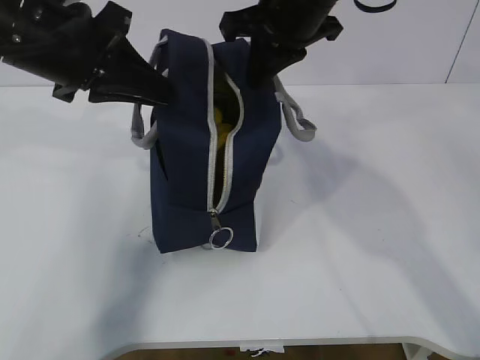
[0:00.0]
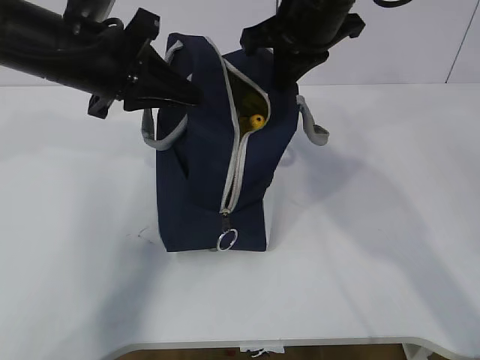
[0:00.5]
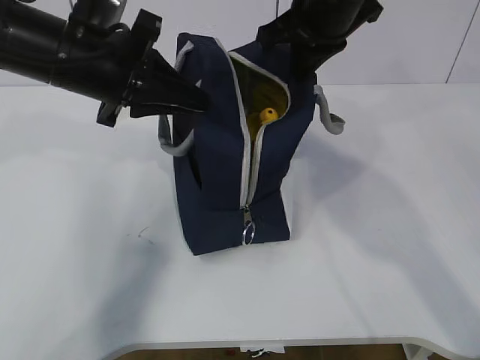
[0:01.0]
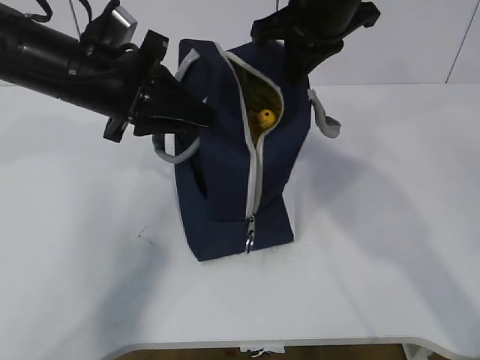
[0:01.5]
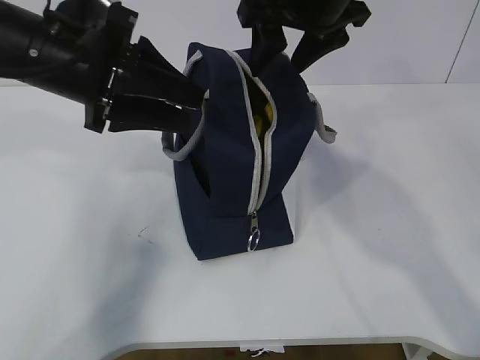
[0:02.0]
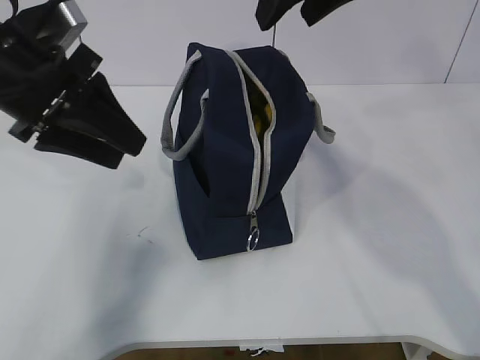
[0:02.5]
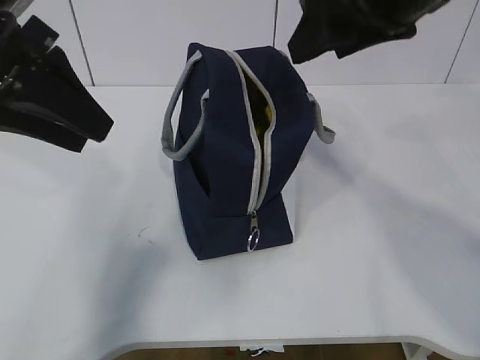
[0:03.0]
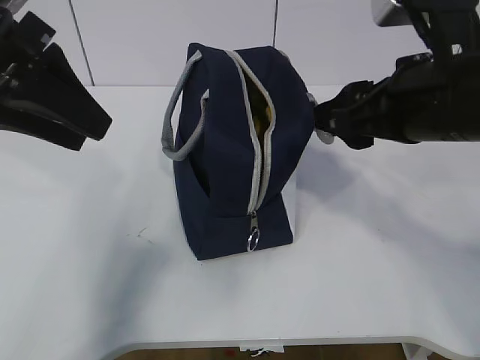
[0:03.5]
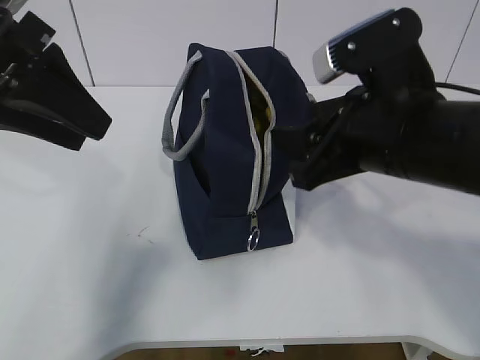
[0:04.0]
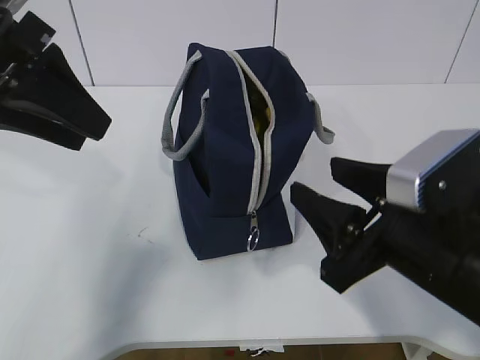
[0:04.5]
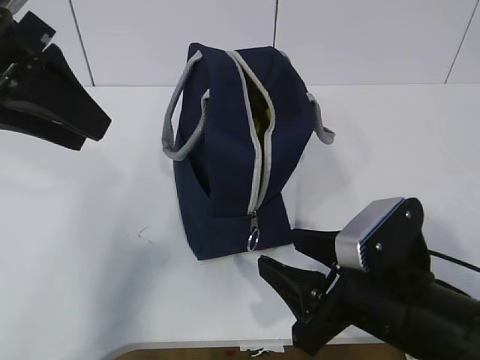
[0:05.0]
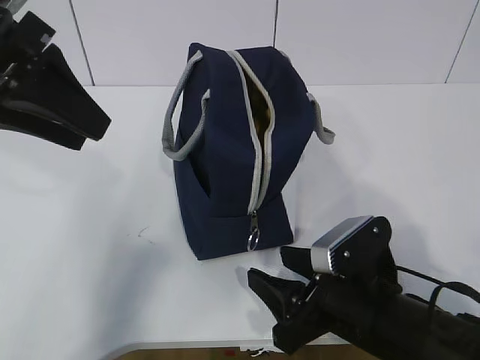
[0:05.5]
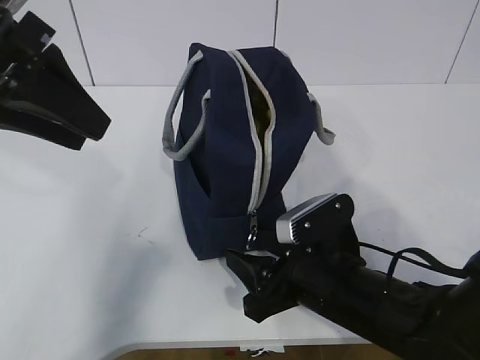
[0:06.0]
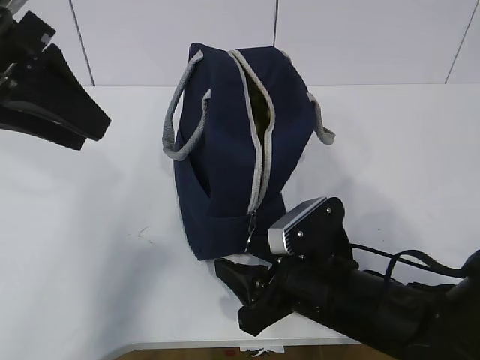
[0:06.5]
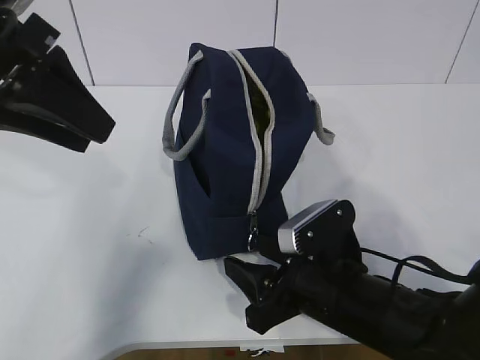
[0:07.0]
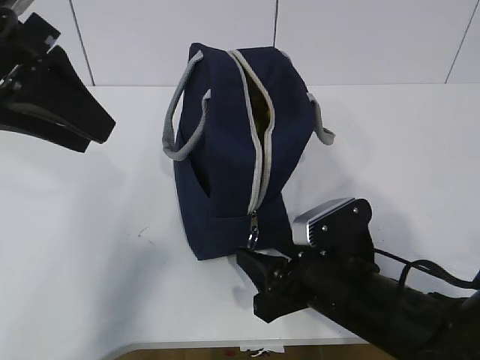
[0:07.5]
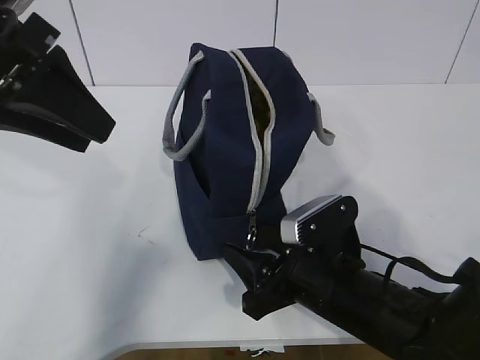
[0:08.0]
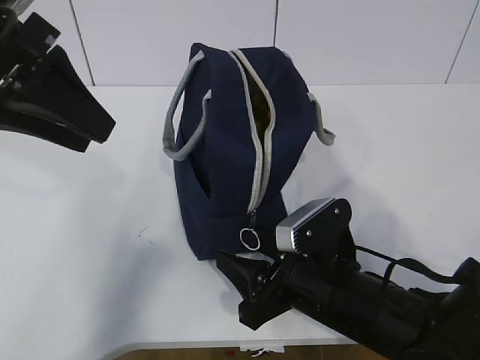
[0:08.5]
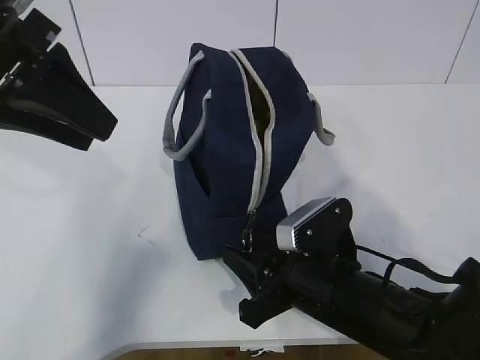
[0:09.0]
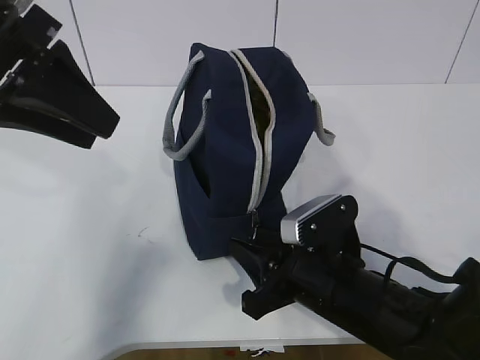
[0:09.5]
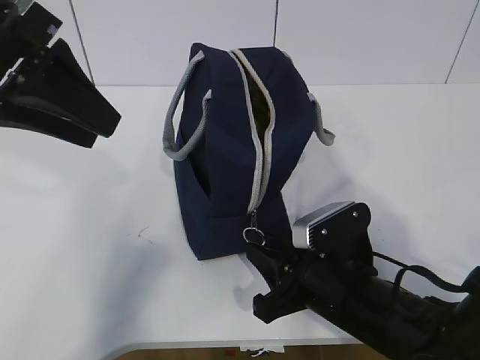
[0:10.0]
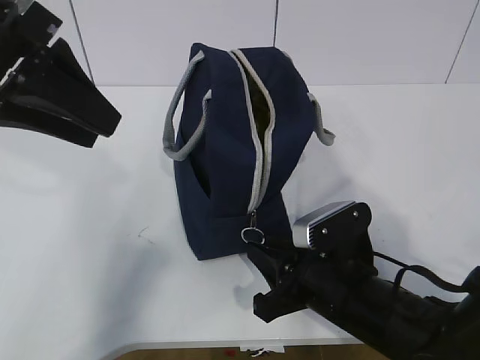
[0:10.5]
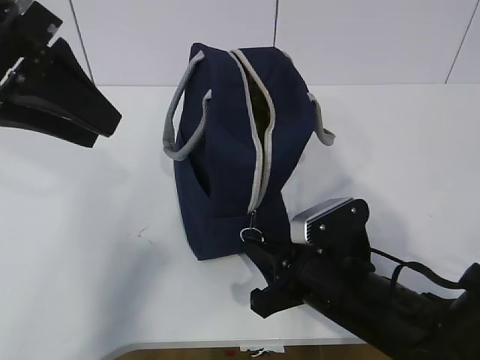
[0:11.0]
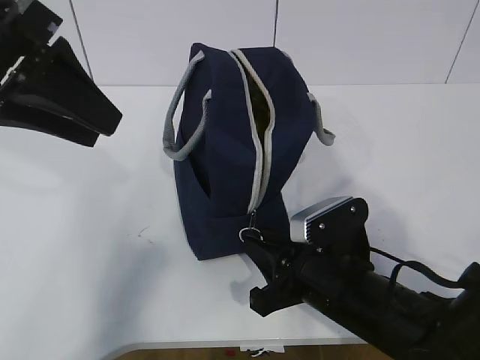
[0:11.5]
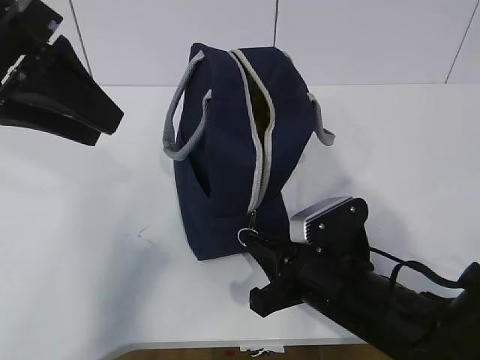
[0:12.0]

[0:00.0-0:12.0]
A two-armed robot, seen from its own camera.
0:00.0 to 0:02.0: The left gripper opens its fingers. The right gripper opens up.
0:02.0 to 0:04.0: The left gripper is displaced backward by about 5 cm. Meanwhile the right gripper travels backward and downward by about 15 cm.
0:04.0 to 0:06.0: The right gripper is displaced downward by approximately 15 cm.
0:06.0 to 0:08.0: The grippers move only a little.
0:08.0 to 0:10.0: The right gripper closes its fingers.
0:10.0 to 0:12.0: Both grippers stay about where they are.

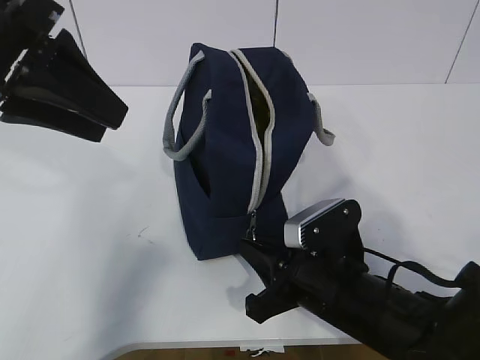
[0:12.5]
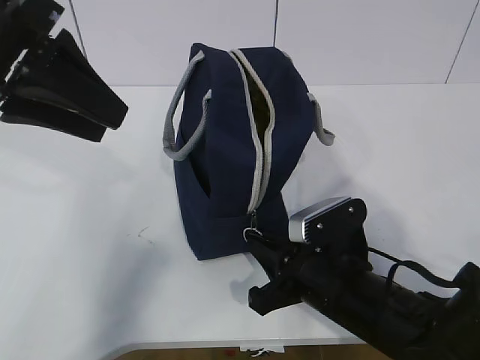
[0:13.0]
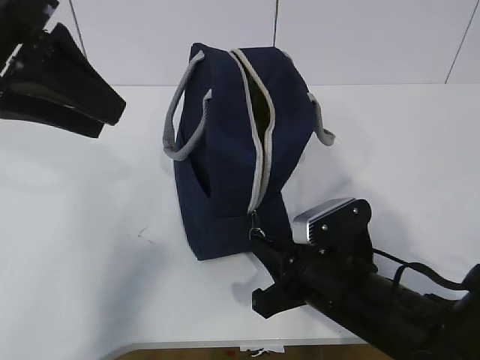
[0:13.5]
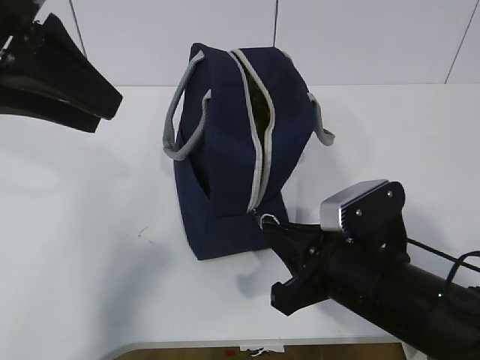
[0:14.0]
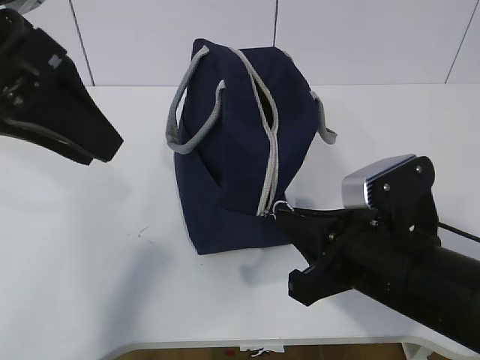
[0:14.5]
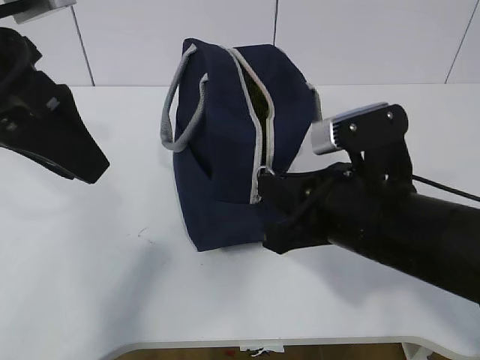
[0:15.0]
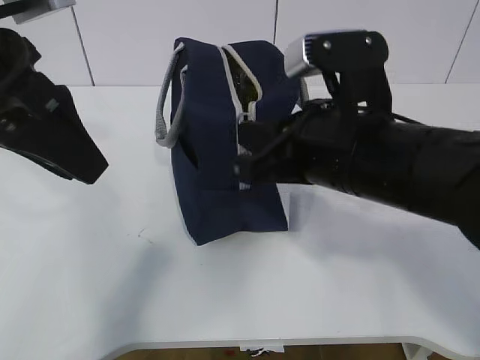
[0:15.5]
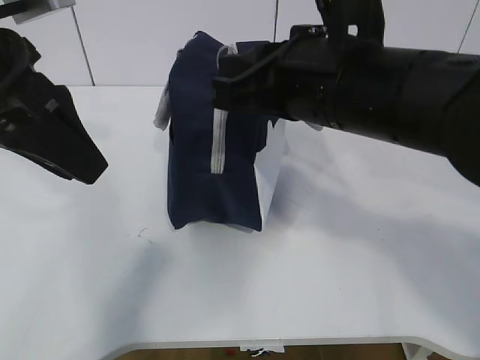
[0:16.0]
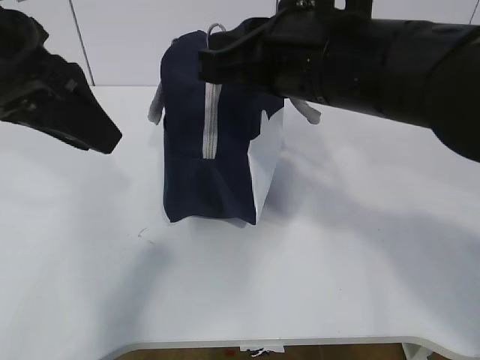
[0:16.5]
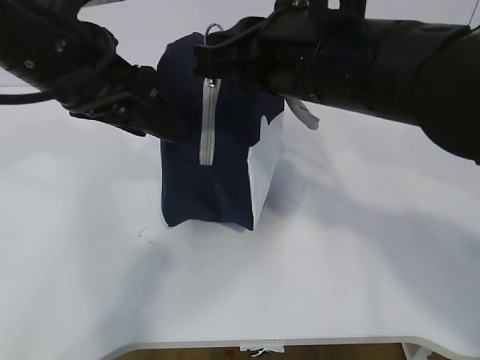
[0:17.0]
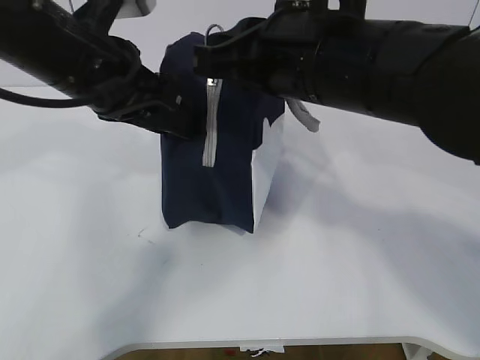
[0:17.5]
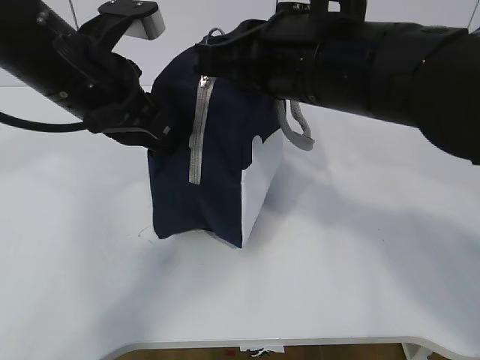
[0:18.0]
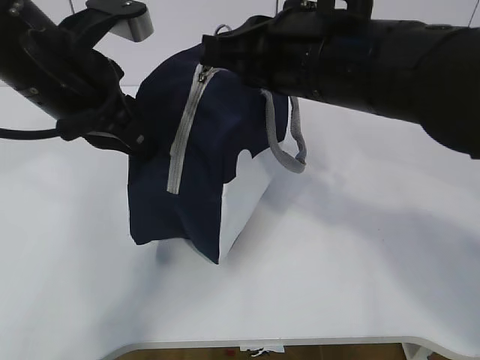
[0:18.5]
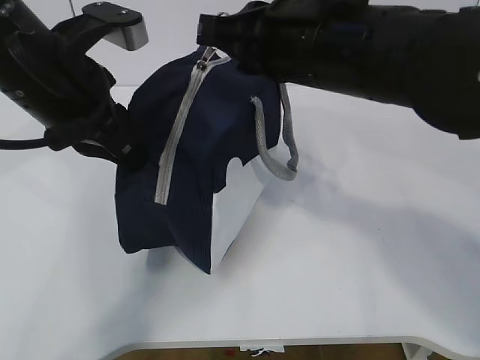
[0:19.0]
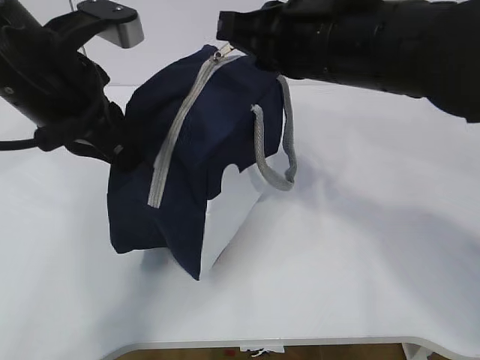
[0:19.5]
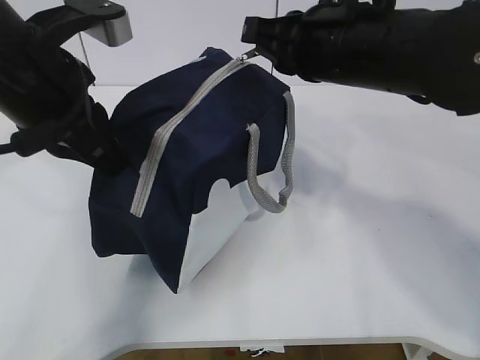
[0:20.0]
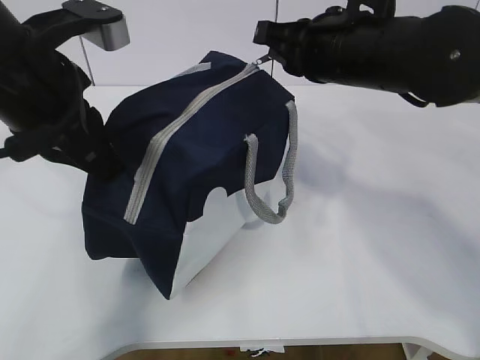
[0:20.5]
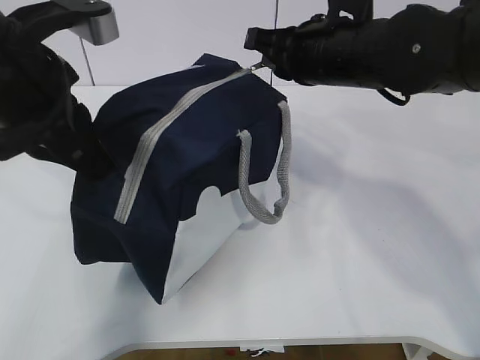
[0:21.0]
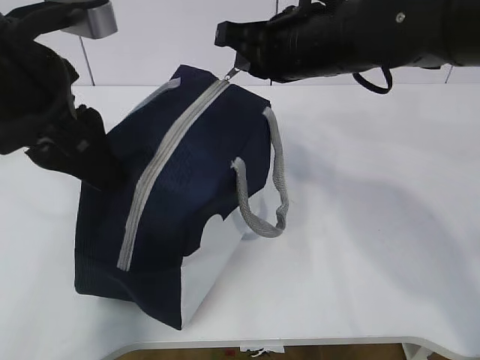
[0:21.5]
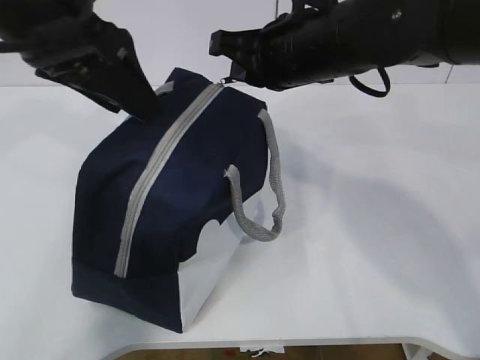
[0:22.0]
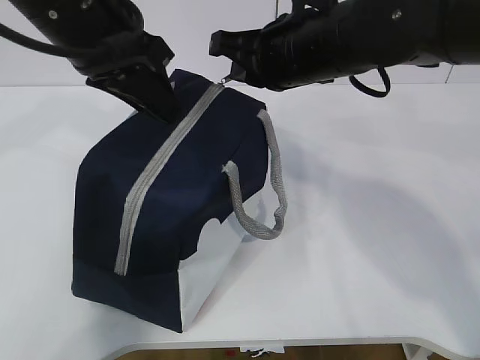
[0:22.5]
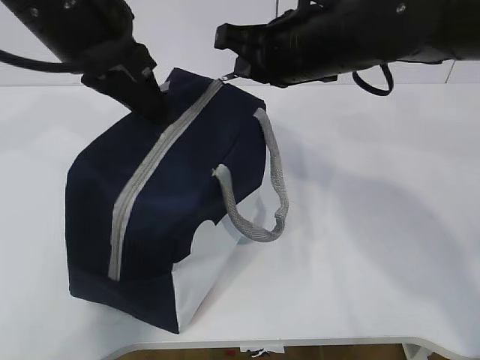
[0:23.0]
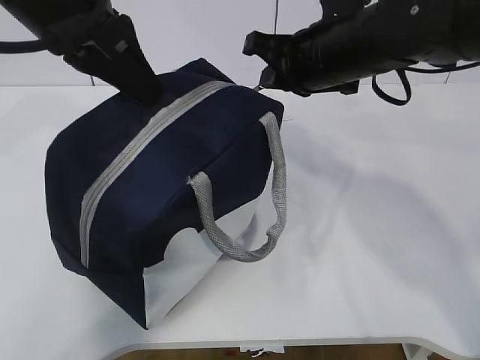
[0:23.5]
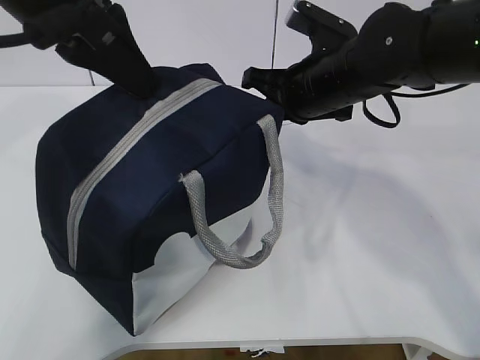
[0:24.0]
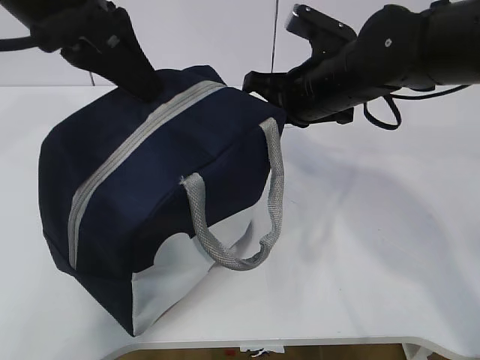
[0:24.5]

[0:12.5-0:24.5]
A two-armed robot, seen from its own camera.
Step, 0:13.0 to 0:15.5: Pull the zipper with your right hand.
Step, 0:16.0 to 0:16.5: Grab the lunch bag with your left hand.
0:12.5 to 0:14.5: The right gripper travels upward by approximately 10 cm.
0:14.5 to 0:16.5: The right gripper moves upward and forward, about 15 cm.
0:16.5 to 0:18.5: The left gripper ends up roughly 5 cm from where it was, and closes up.
0:18.5 to 0:20.5: The right gripper goes about 5 cm forward.
0:20.5 to 0:22.5: The left gripper shifts by roughly 5 cm, and opens its fingers.
0:22.5 to 0:24.5: The left gripper closes up. The right gripper shifts approximately 5 cm downward.

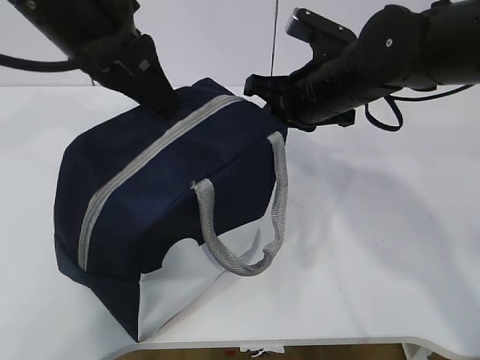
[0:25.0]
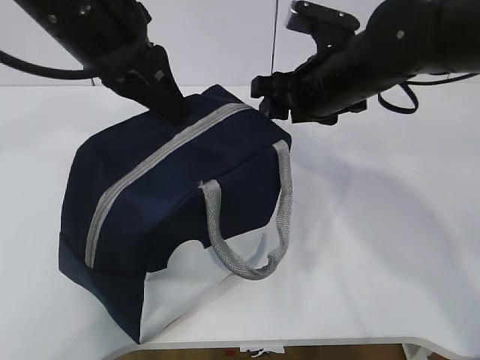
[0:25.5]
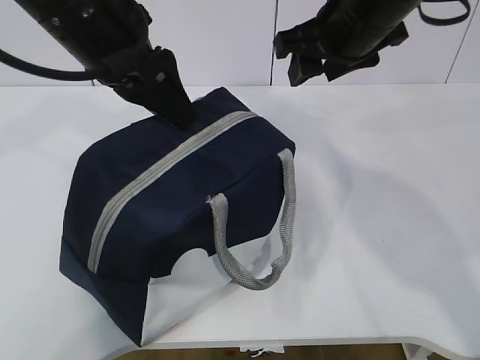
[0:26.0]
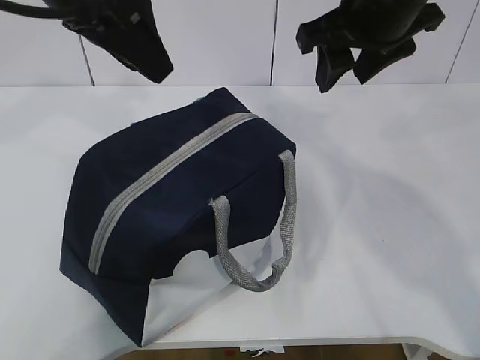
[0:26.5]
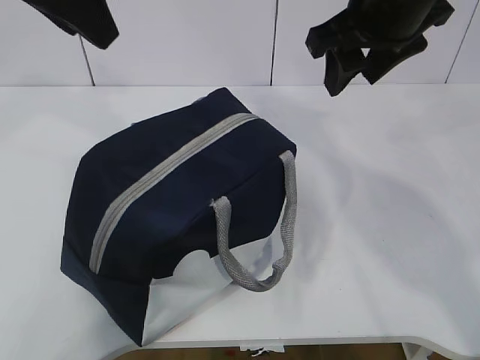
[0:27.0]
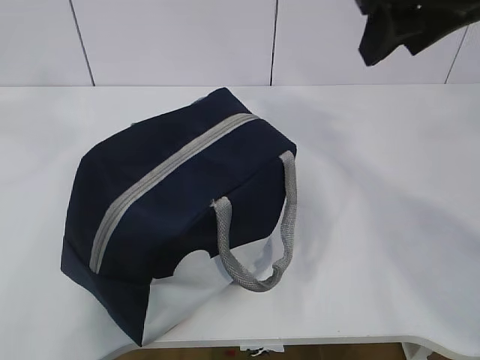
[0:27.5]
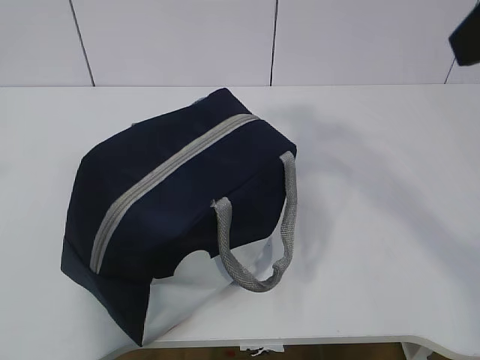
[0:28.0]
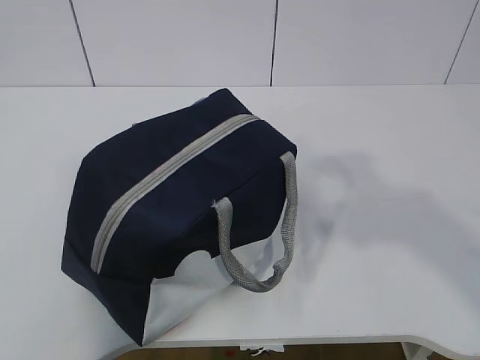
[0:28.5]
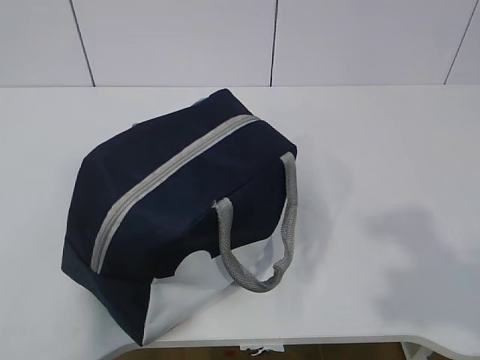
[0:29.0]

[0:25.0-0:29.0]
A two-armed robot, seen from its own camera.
0:25.0 to 0:27.0: The left gripper moves upward, some 5 cm, and opens up. Meanwhile the right gripper moves upward, roughly 10 cm, and opens.
0:27.0 to 0:29.0: The left gripper moves backward and to the left, roughly 35 cm; the right gripper is displaced backward by roughly 35 cm.
